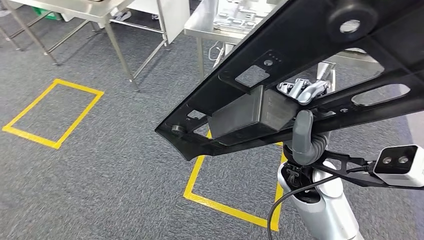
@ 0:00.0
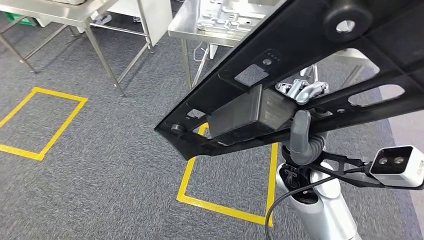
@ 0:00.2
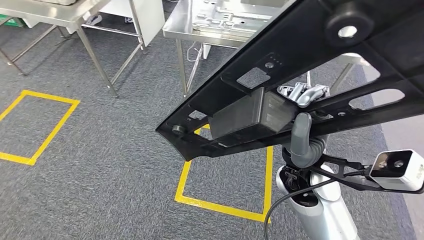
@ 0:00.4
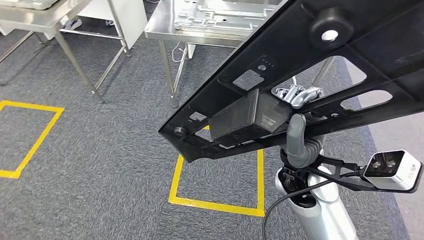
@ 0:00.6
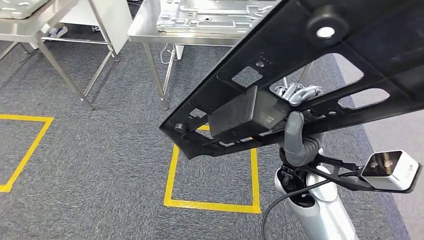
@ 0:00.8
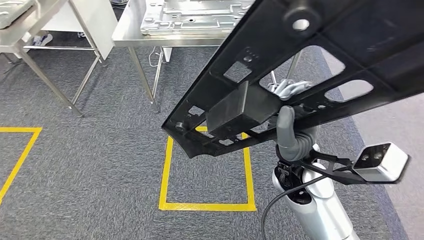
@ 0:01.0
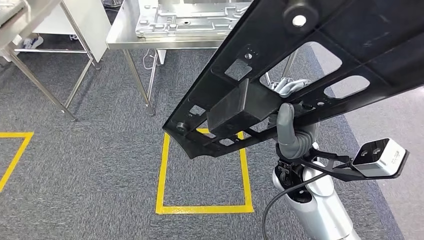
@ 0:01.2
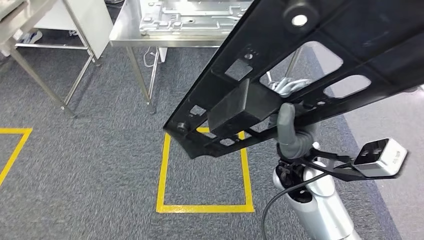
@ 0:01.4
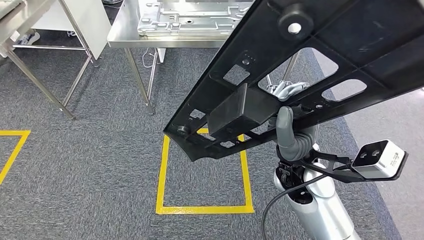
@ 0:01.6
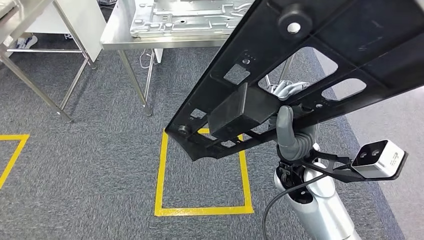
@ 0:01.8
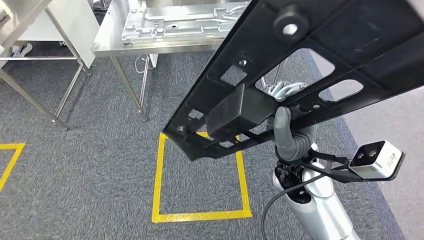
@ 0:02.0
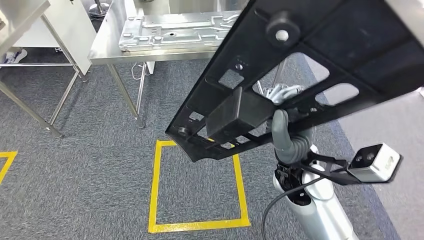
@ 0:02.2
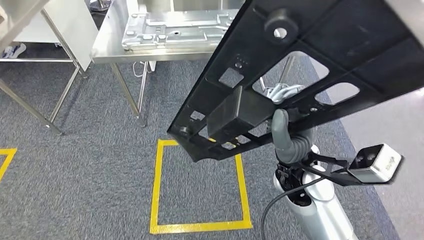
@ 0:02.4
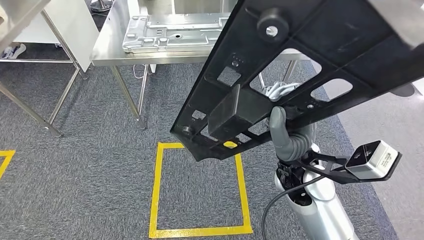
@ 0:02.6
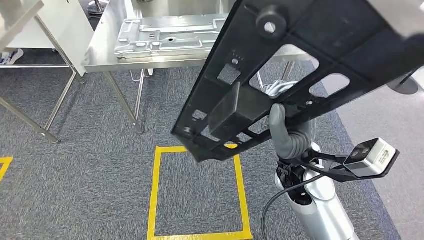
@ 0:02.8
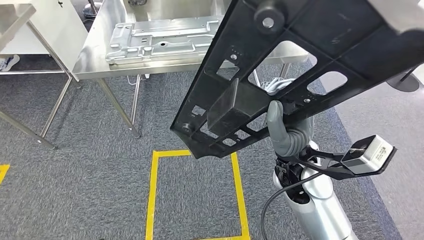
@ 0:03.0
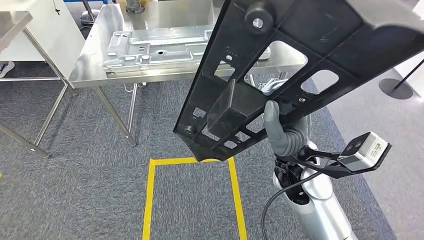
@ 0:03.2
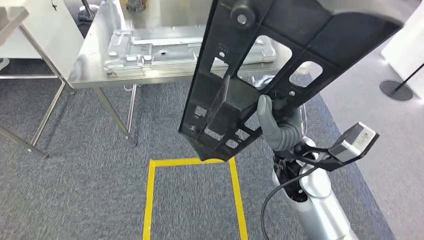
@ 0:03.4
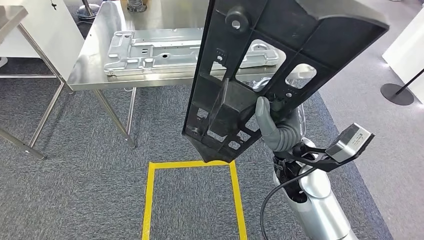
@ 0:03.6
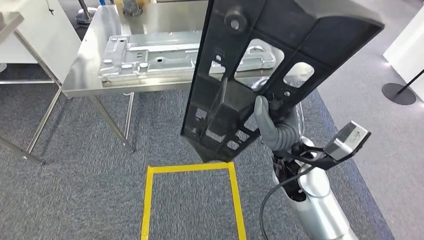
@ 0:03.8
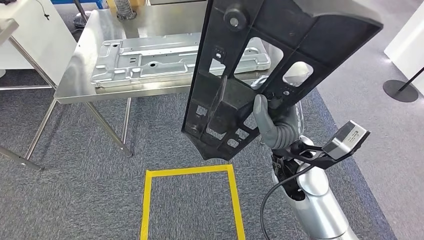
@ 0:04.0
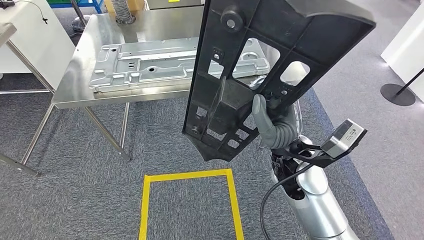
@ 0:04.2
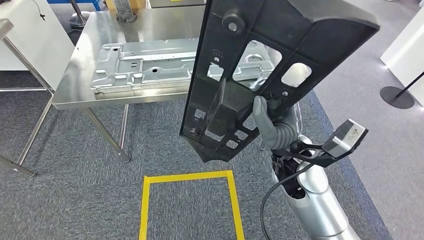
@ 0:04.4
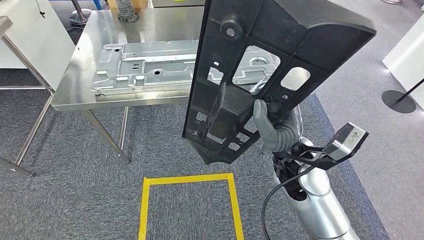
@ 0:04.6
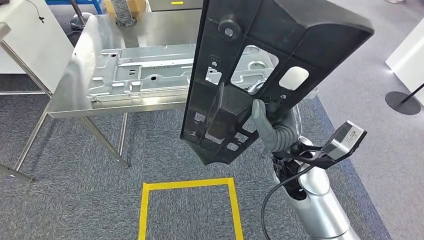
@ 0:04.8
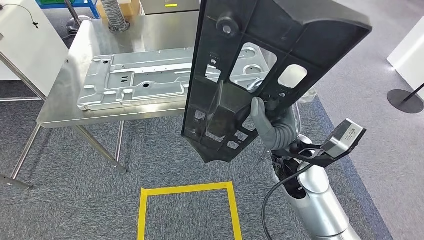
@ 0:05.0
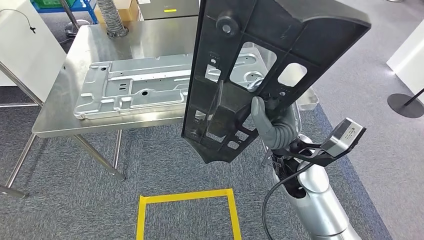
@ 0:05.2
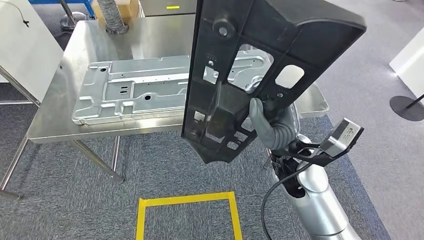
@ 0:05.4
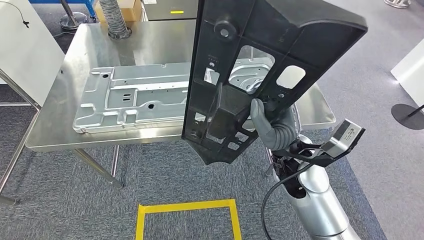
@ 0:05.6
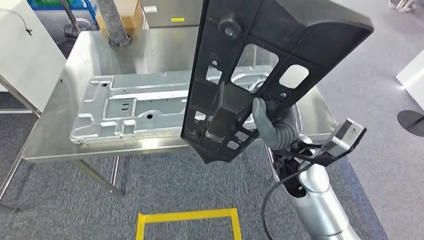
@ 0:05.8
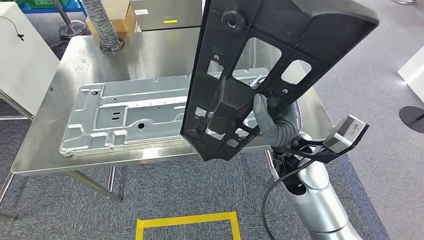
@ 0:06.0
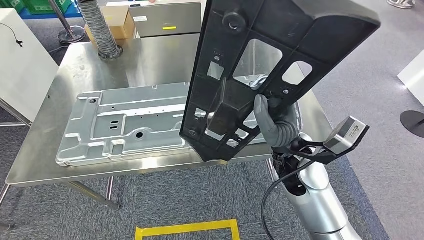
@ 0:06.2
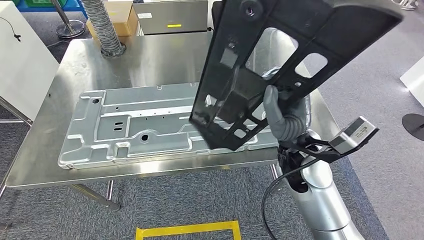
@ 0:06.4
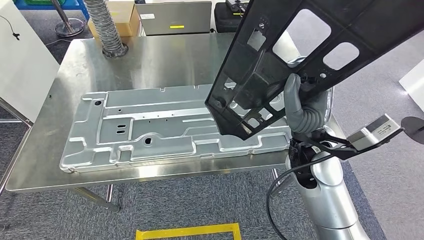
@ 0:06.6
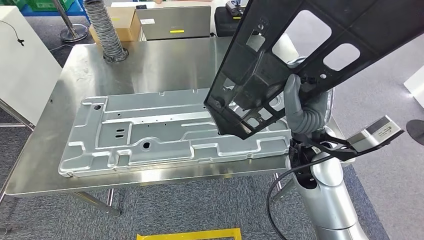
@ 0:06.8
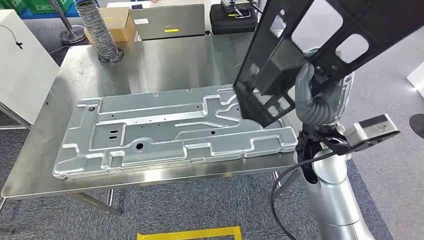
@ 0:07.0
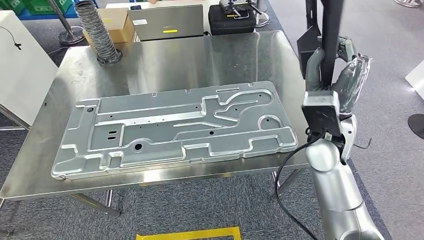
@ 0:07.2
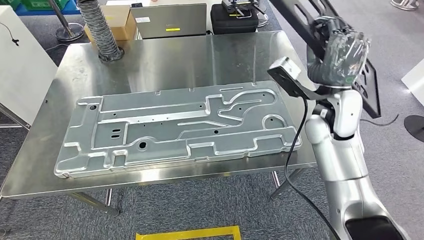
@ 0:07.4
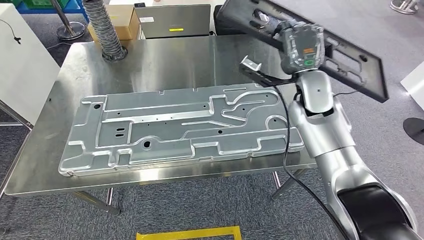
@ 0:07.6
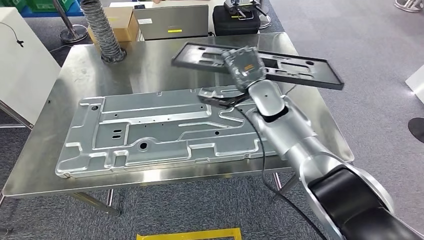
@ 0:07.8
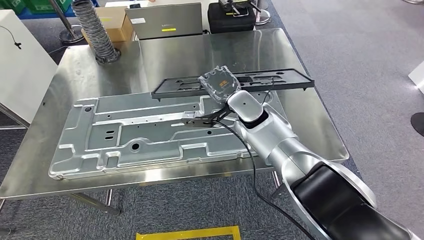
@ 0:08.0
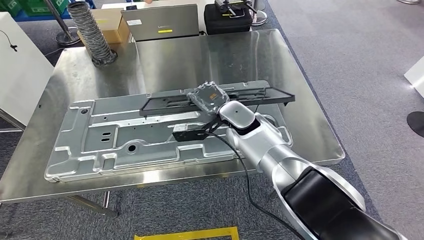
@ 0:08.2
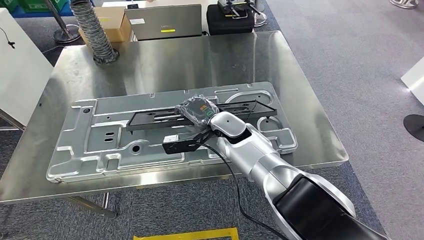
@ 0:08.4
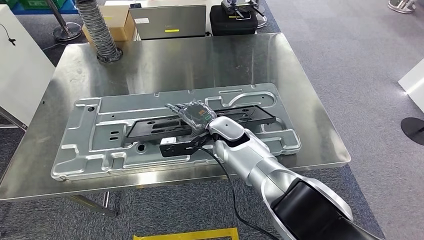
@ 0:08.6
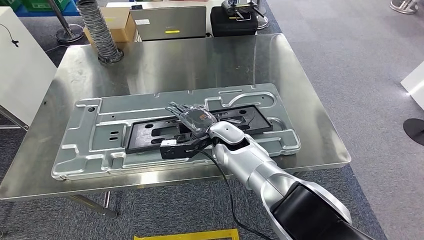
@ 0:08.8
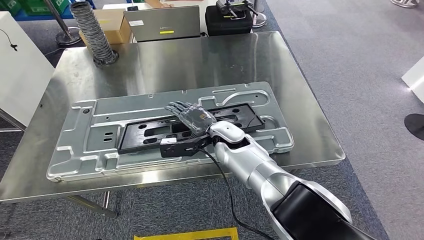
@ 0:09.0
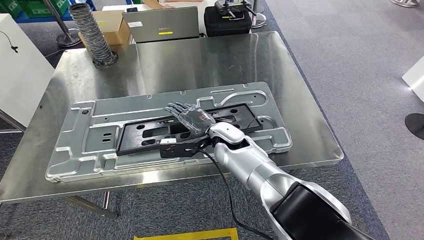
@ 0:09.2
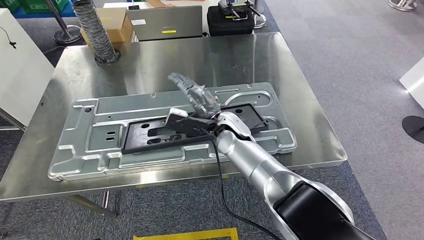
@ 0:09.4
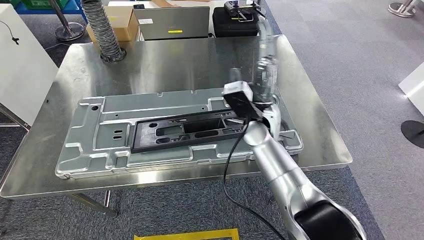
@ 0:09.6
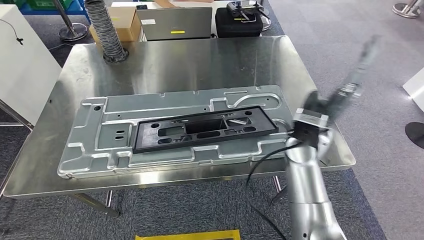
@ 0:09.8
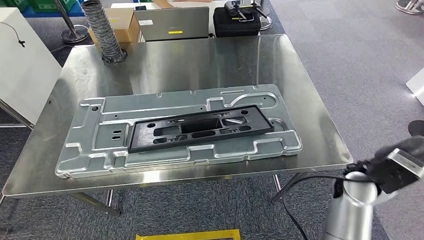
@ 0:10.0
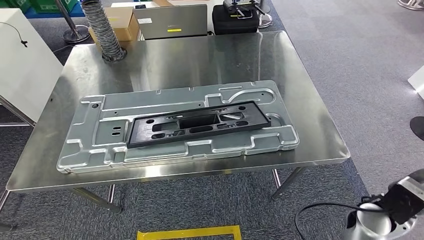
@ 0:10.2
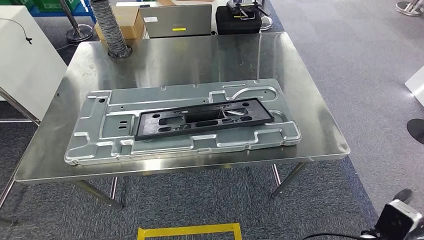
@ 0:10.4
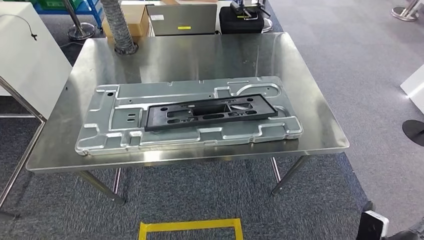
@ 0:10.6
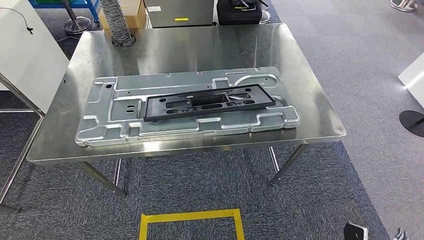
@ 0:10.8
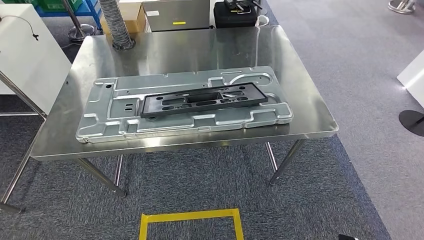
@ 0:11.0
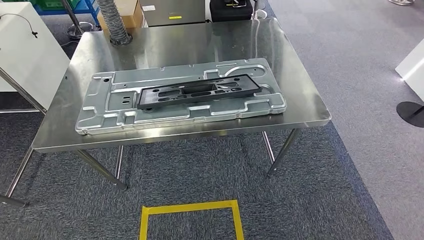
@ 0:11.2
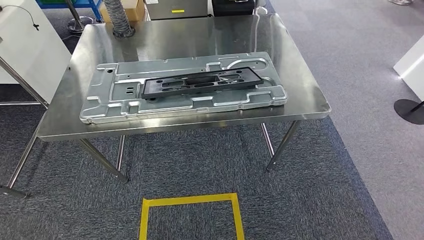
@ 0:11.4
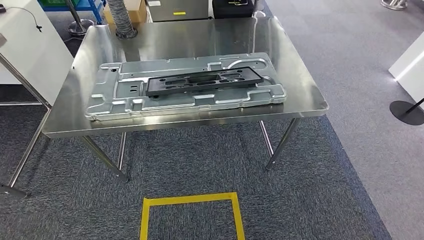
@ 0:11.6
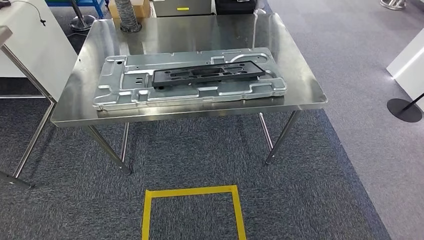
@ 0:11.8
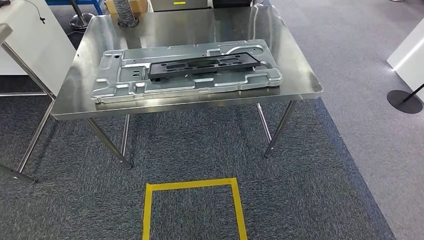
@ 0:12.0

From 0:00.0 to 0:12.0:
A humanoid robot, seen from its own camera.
Step, from 0:00.0 to 0:08.2: Move the large material to the workbench.

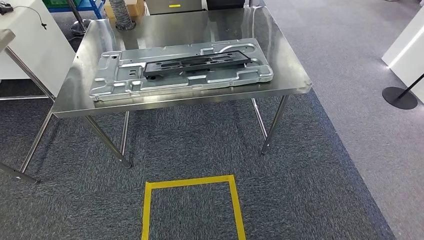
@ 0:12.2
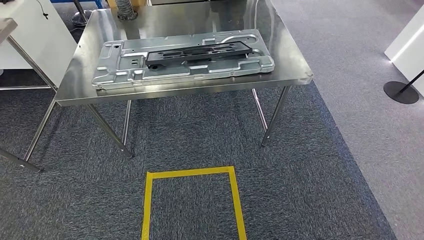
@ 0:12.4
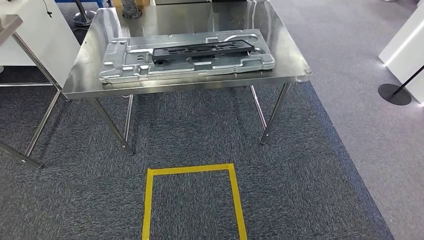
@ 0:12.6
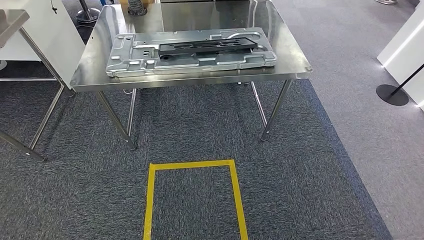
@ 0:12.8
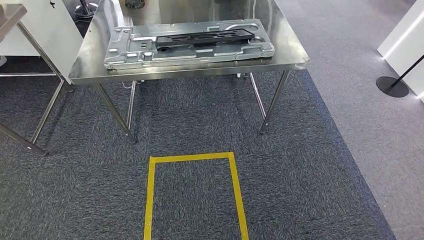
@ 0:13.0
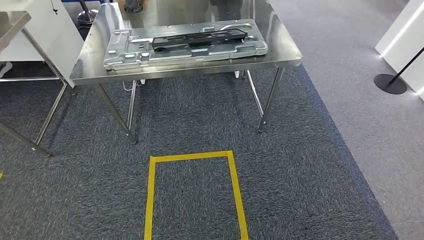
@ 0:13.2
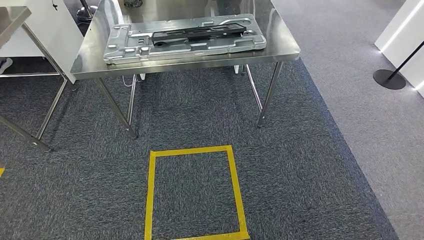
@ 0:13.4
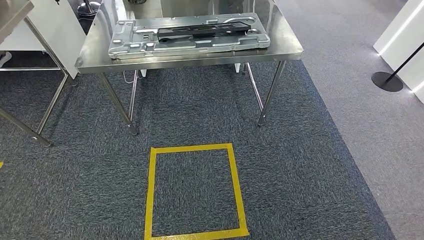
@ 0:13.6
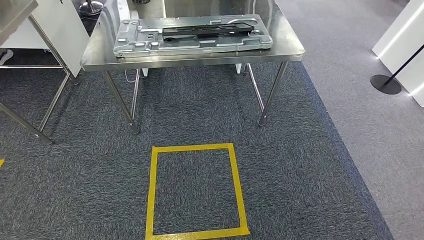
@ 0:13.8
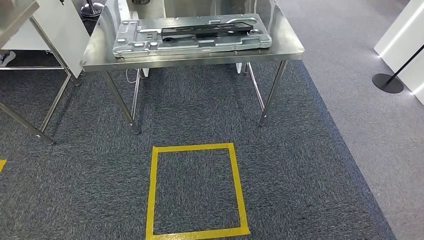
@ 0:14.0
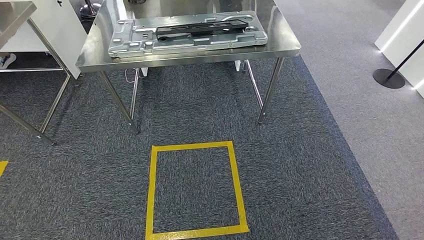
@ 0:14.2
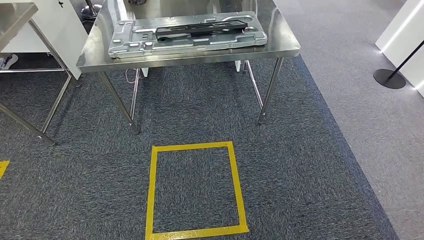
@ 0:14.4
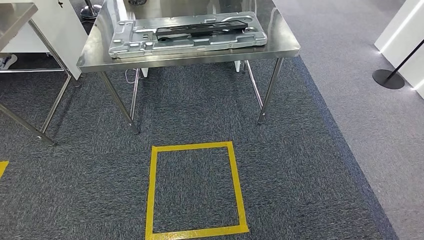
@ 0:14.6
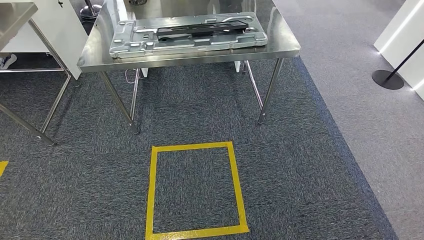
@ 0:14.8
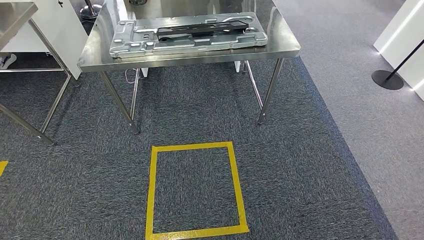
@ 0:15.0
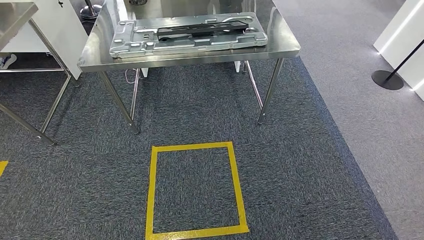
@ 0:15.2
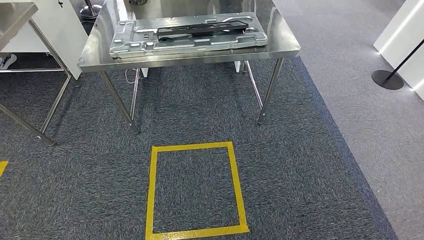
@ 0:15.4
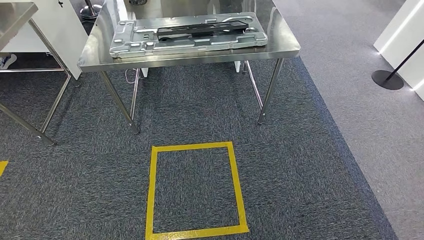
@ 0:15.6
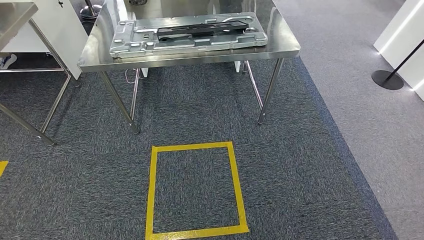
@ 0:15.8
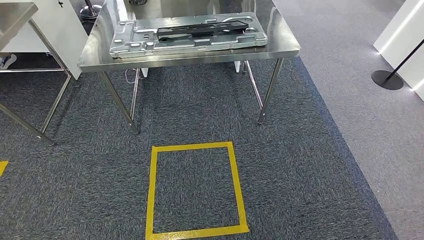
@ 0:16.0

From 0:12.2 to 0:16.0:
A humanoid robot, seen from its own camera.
Step, from 0:12.6 to 0:16.0: Move to the initial position of the shelf.
